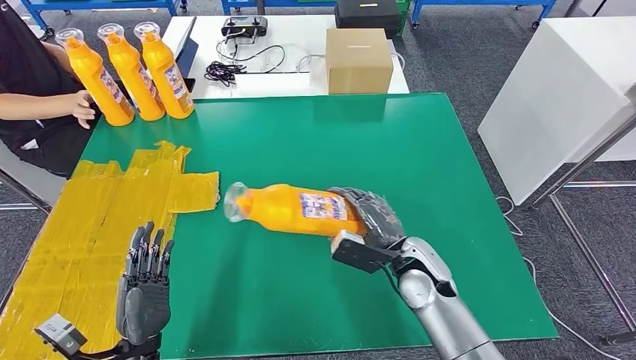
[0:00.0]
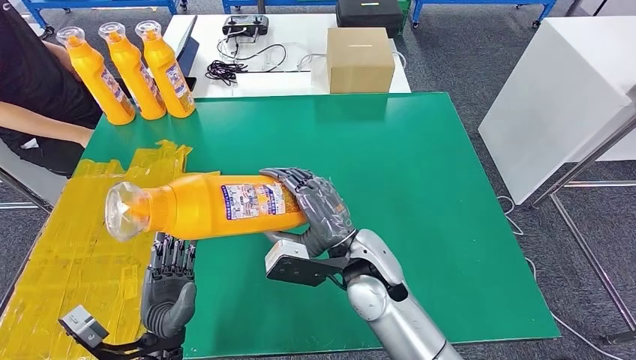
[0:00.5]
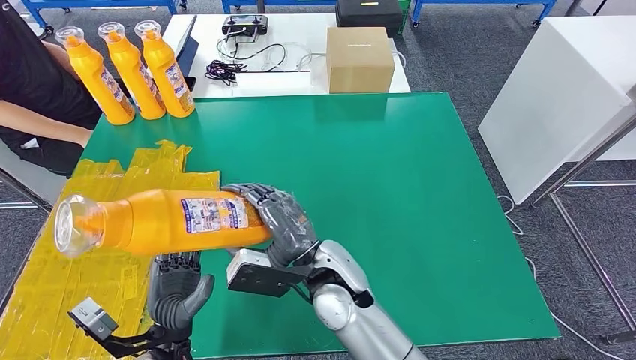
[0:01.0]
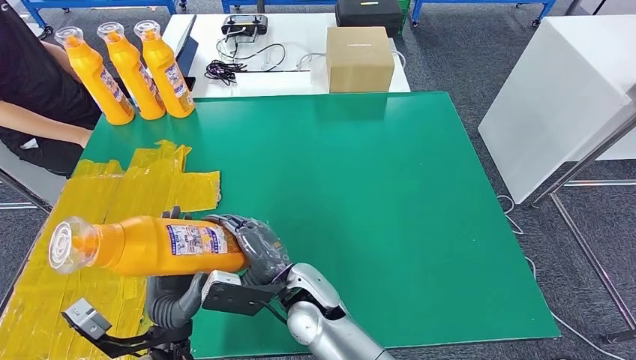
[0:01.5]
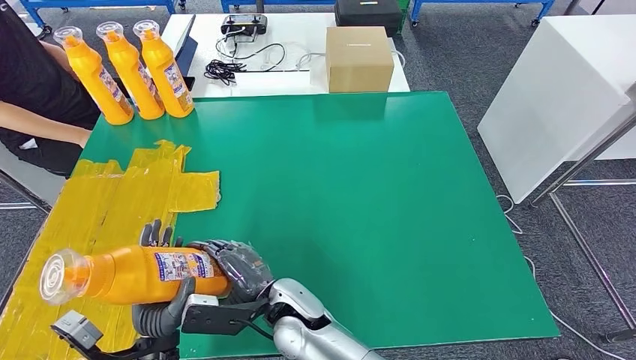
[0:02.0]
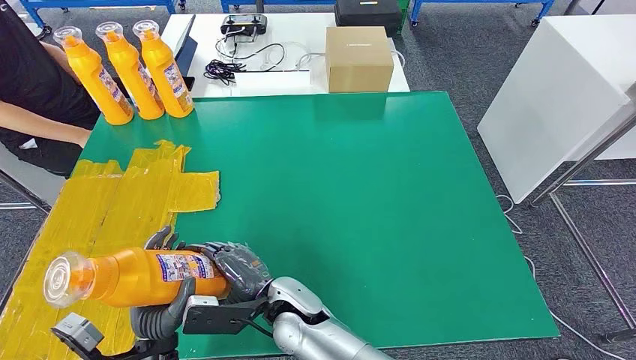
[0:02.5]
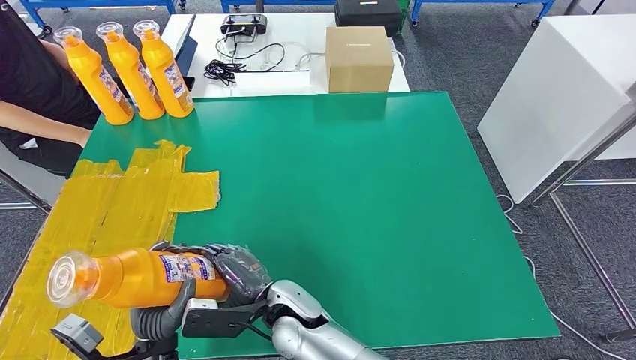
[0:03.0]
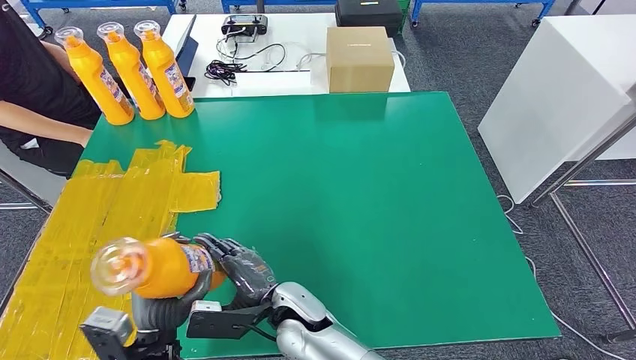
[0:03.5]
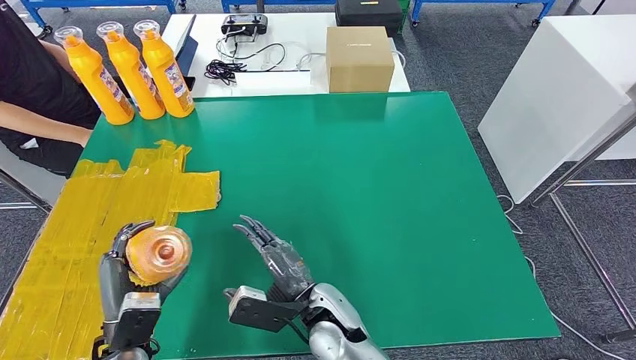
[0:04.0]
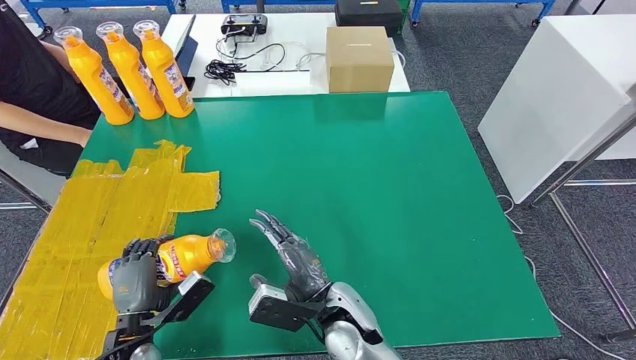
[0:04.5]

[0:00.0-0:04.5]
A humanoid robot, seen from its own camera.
Step, 0:02.5 to 0:04.5: Flip the bottle to face forward.
0:02.0 to 0:04.5: The right hand travels to the right by about 10 cm. The left hand travels to the left by approximately 5 cm.
